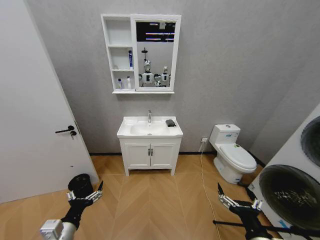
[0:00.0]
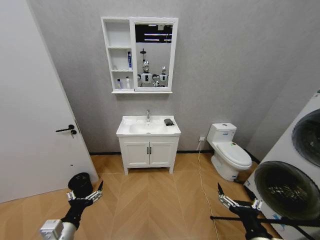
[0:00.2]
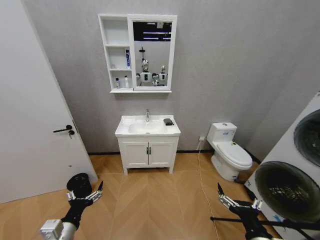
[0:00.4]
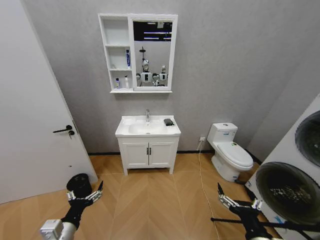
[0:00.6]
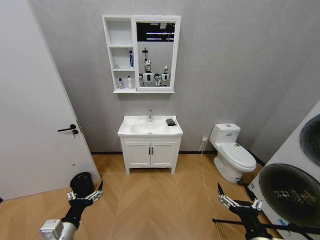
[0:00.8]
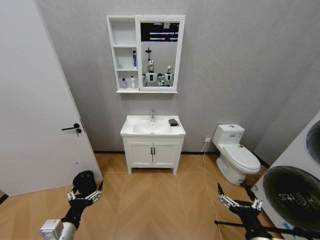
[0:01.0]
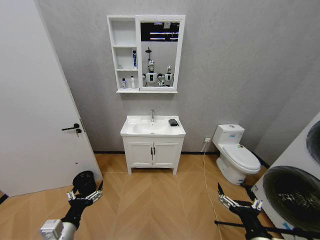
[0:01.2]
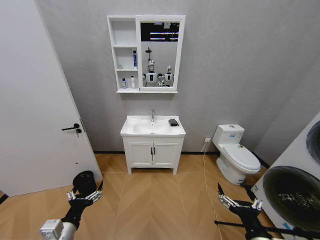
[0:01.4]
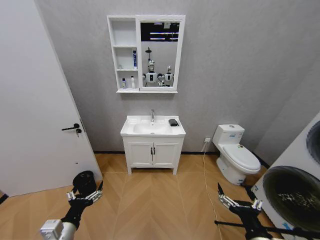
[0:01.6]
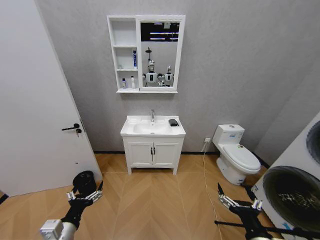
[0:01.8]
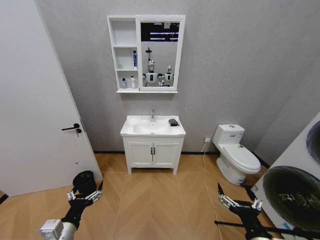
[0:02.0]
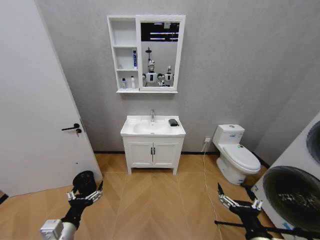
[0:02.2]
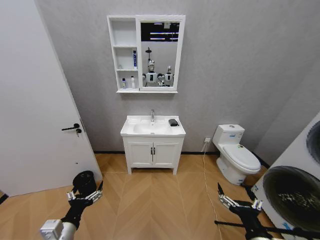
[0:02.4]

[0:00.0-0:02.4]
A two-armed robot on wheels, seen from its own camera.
Task of the whole recording: Move facial cleanser and shampoo from washbasin to cabinet, then wipe washbasin with towel.
0:00.0 to 0:02.4: The two grippers keep their place.
